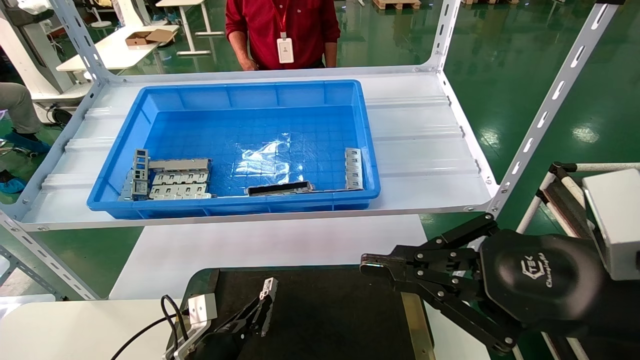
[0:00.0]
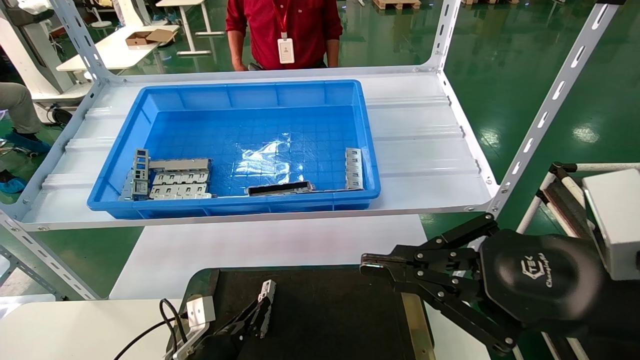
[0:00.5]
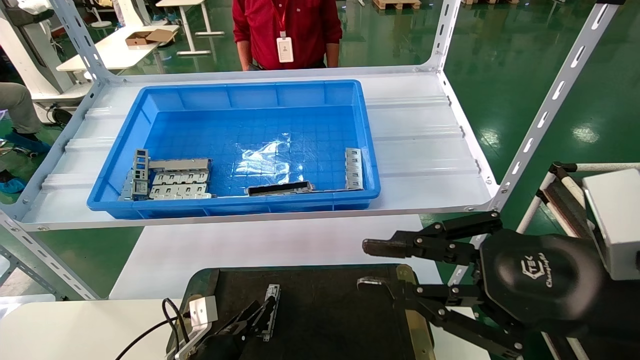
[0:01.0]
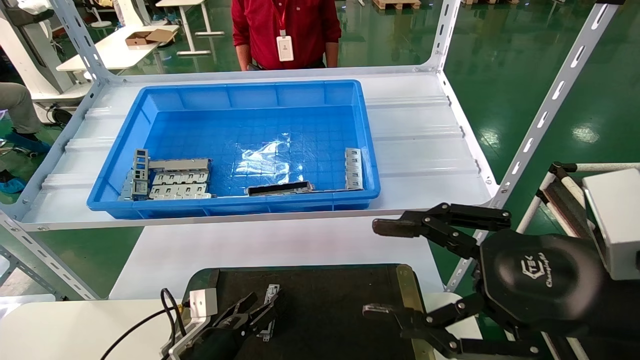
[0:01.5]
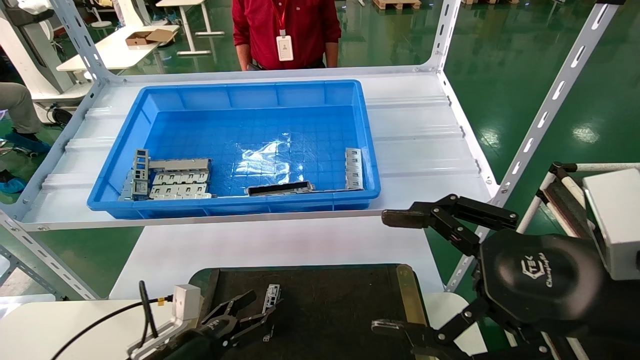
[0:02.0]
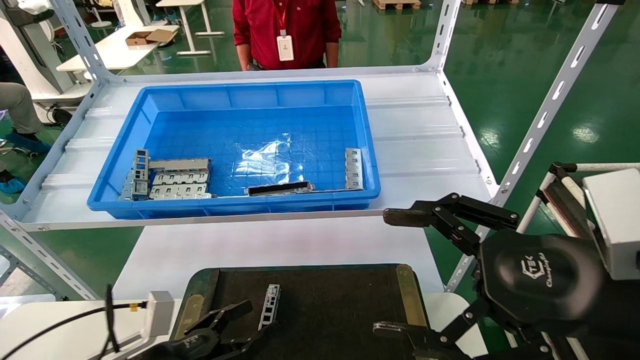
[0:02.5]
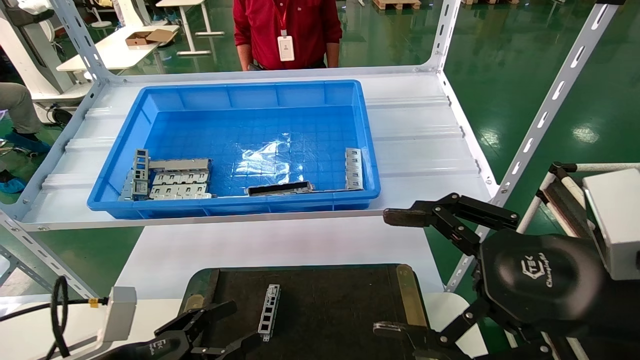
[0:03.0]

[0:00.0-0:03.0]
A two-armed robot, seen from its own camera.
Task of the whole recording: Grasp the part with one hand and place it on the black container.
0:00.0 to 0:01.5: The left gripper opens its fingers, while the right gripper opens.
0:01.5 to 0:03.0: The right gripper opens up; the left gripper goes about 20 cm backward, upward and to the left, and opens its fingers.

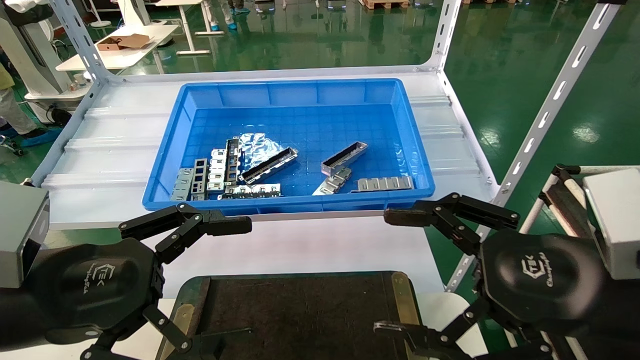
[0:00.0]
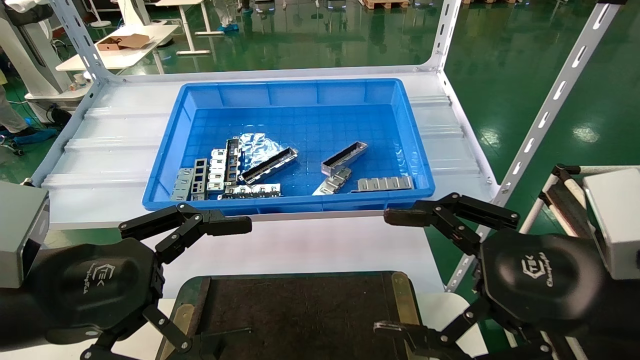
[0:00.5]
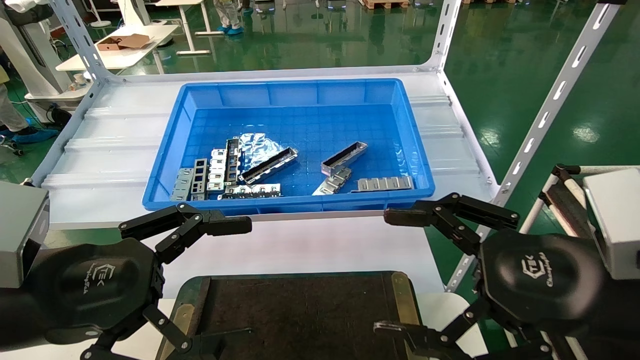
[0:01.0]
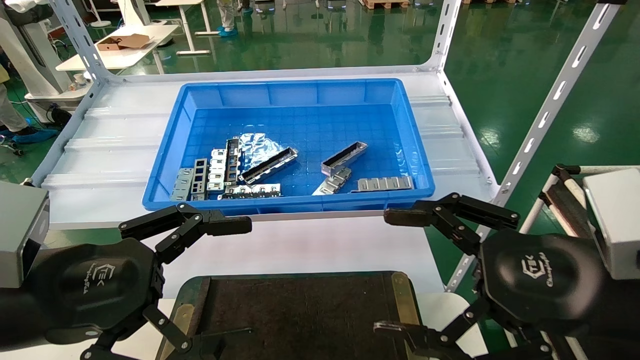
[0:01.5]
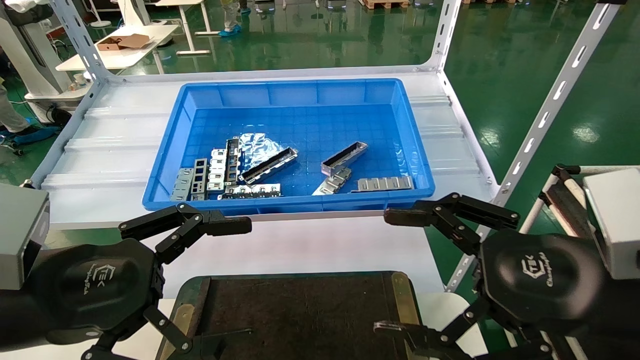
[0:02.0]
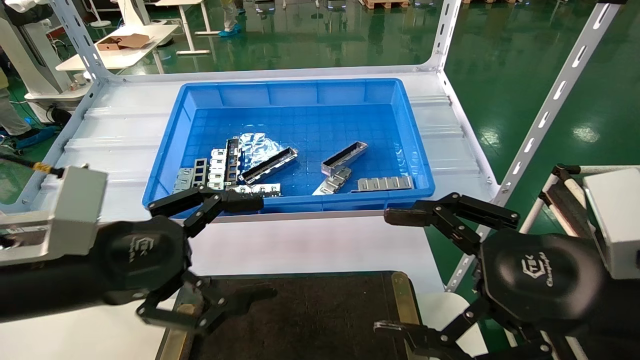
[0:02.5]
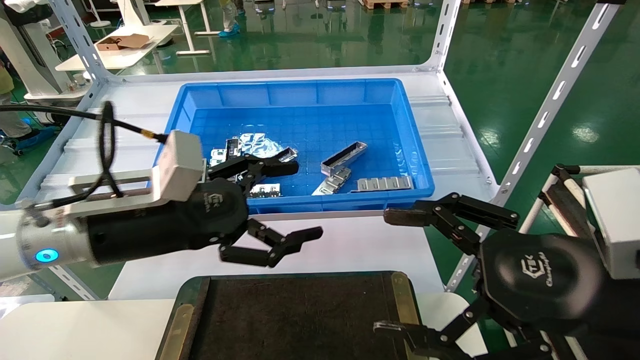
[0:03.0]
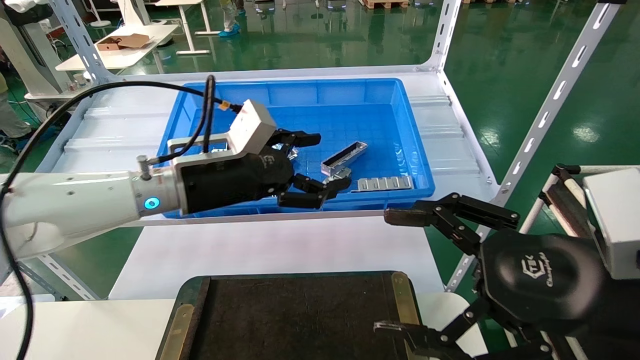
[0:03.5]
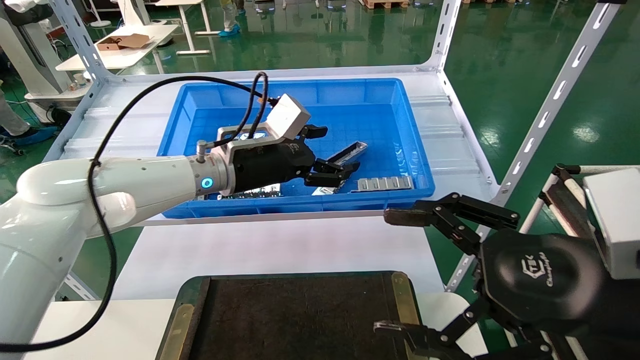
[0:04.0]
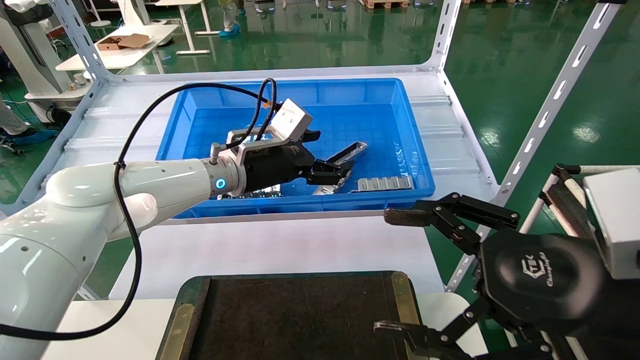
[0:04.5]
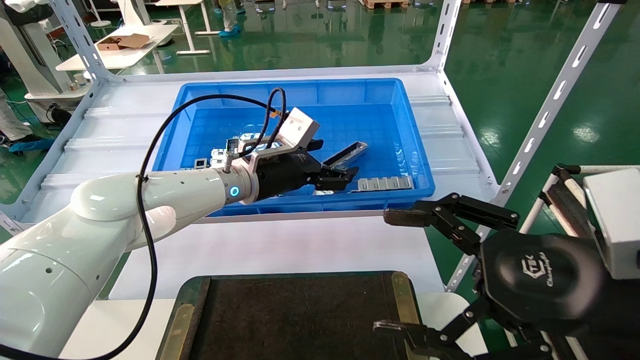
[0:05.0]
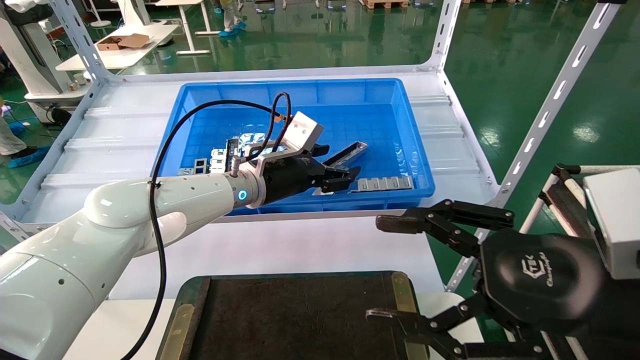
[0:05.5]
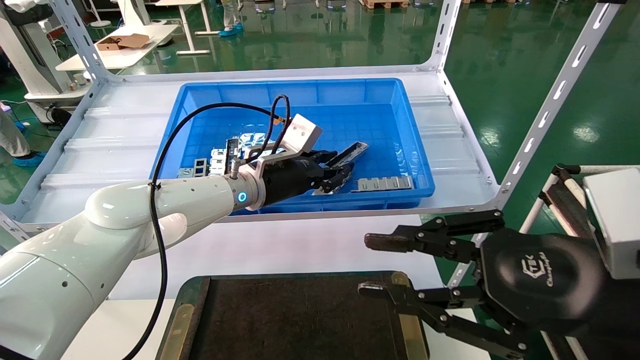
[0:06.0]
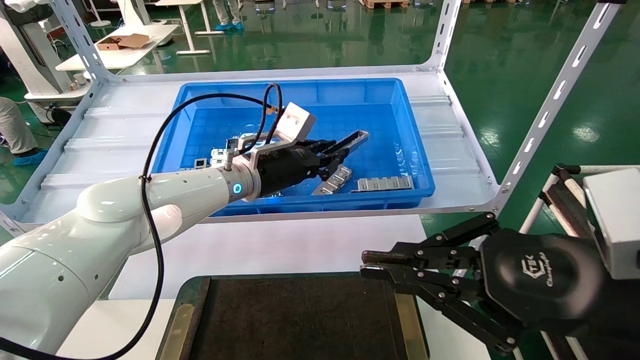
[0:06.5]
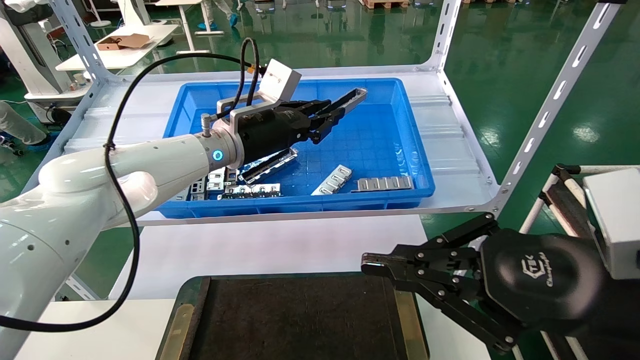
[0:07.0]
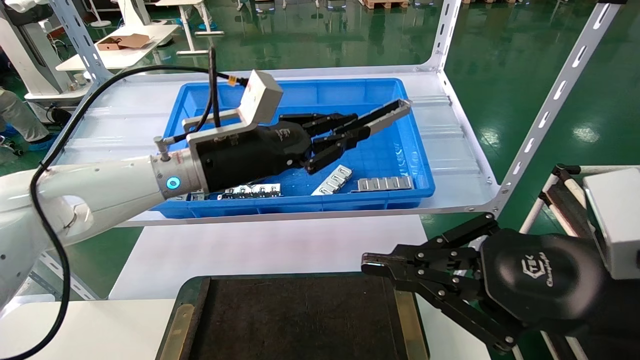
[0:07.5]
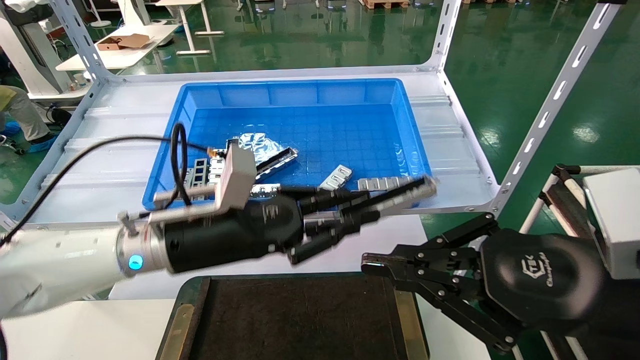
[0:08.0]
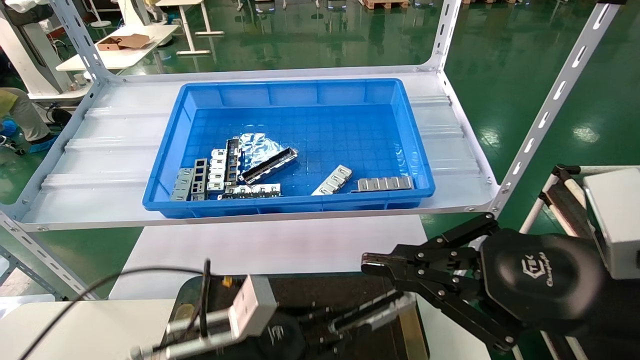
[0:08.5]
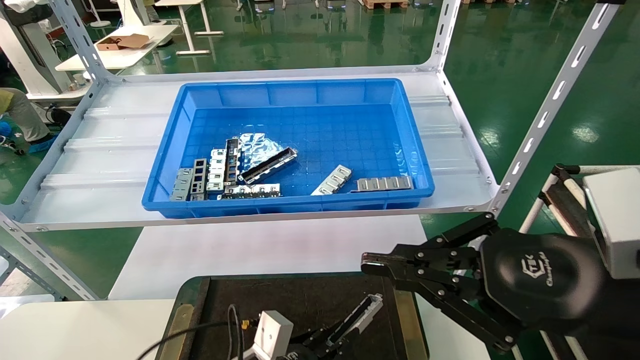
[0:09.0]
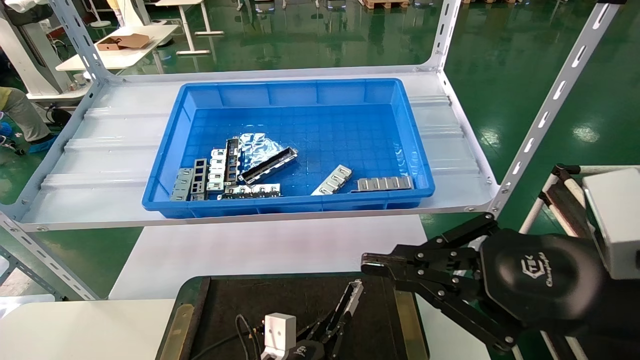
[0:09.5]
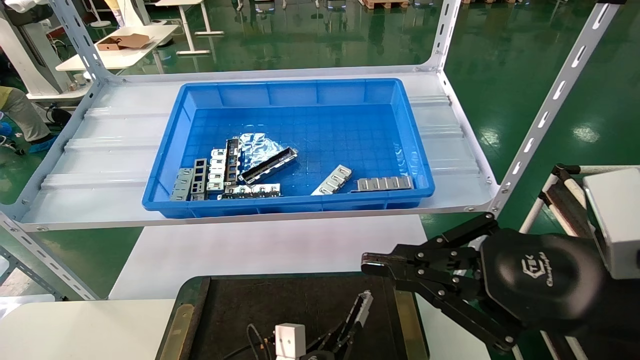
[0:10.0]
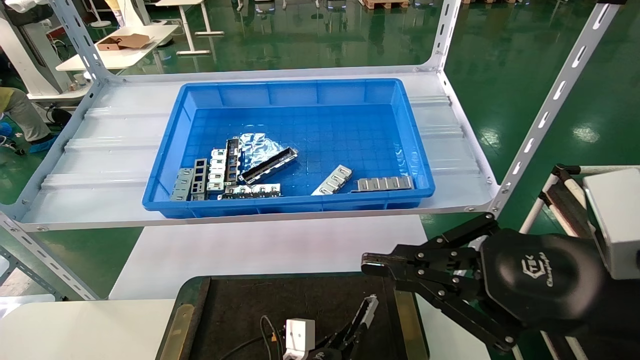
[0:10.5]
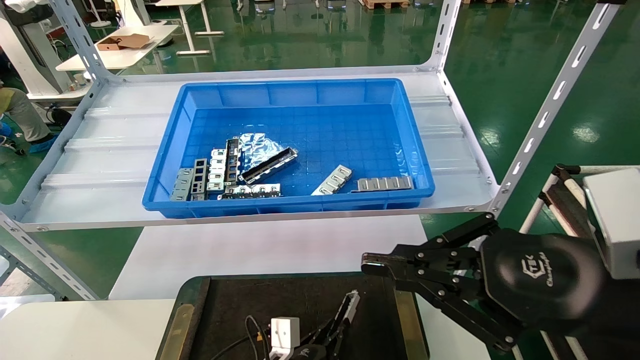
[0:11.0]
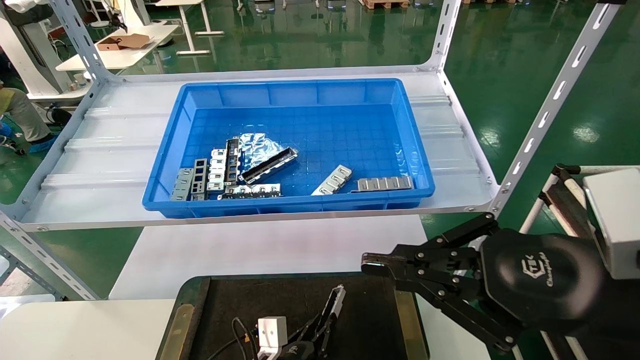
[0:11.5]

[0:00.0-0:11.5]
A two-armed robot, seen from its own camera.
Task of the whole recording: Grasp the part with one hand and place it on the black container.
Step, 0:02.5 to 0:06.0: Pick up the front USB bracket from the feeding area.
0:00.0 to 0:02.0: The two grippers keep their place.
0:02.0 to 0:04.0: The left gripper heads forward and to the right, covering roughly 30 cm.
0:04.0 to 0:06.0: The right gripper closes. Meanwhile the left gripper changes place by about 5 cm, and closes.
0:06.0 to 0:07.5: The left gripper heads backward, covering roughly 10 cm, while the right gripper closes up.
0:07.5 to 0:09.5: The left gripper goes some 35 cm downward.
0:09.5 to 0:11.5: The left gripper moves some 5 cm.

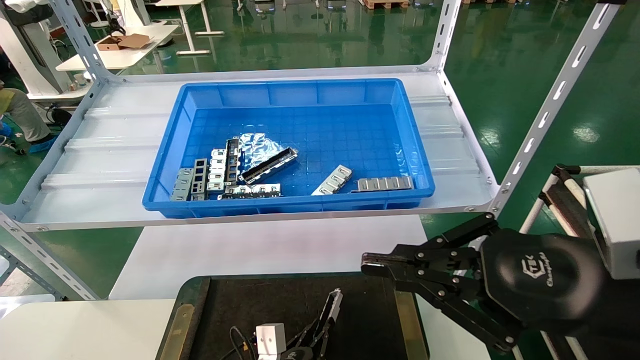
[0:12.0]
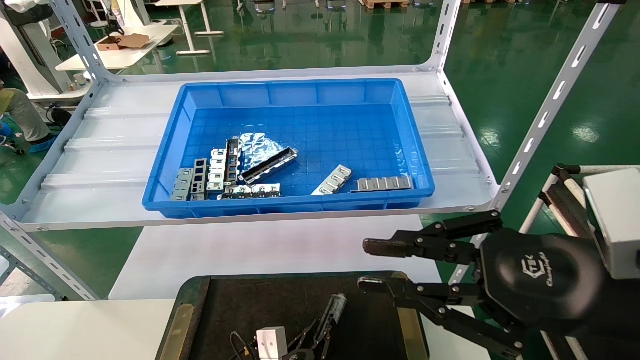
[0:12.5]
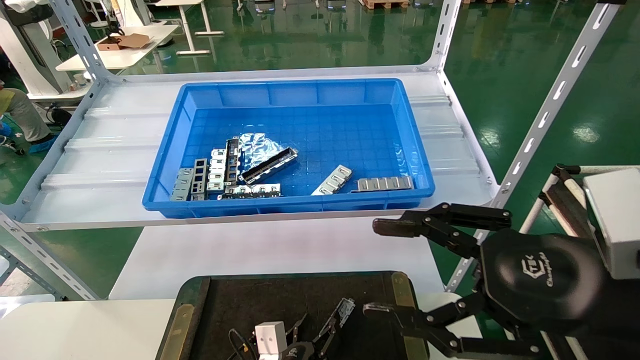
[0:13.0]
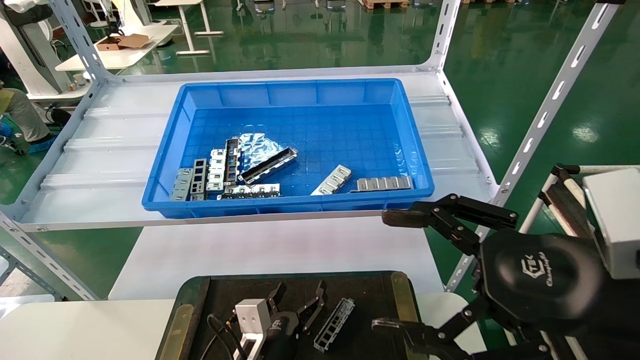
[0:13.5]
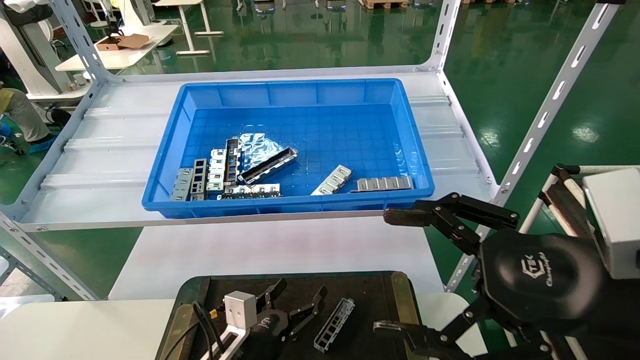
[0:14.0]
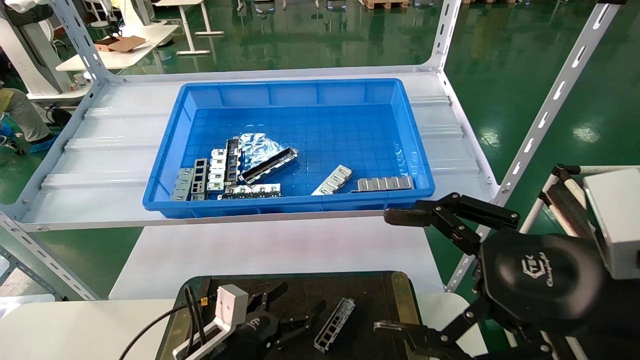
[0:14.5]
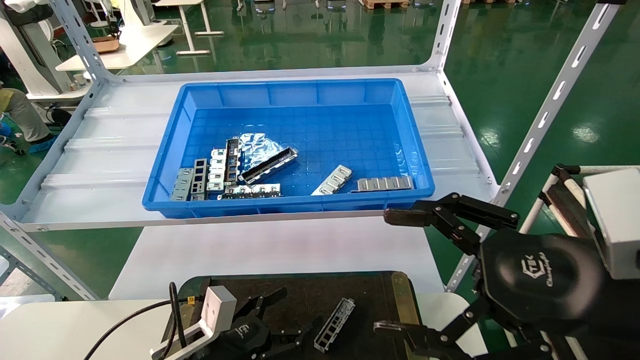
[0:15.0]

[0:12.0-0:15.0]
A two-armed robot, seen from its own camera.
Task of the whole recording: Grasp the part with one hand and place it on the black container.
0:12.0 to 0:13.5: The right gripper opens up, while the left gripper opens its fingers.
0:13.5 to 0:15.0: The left gripper heads to the left and upward, covering about 10 cm.
